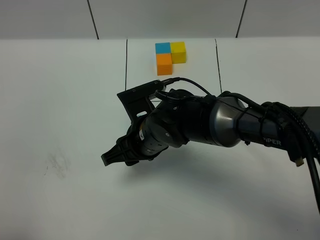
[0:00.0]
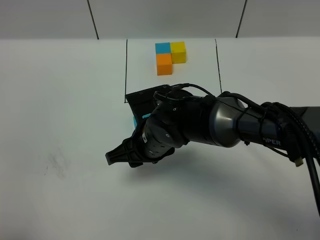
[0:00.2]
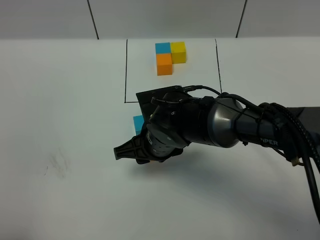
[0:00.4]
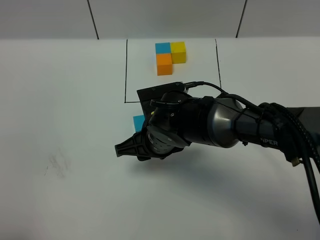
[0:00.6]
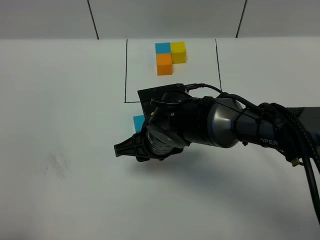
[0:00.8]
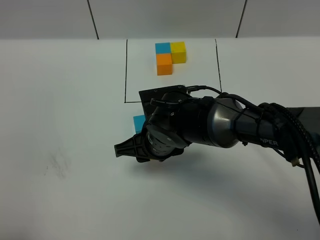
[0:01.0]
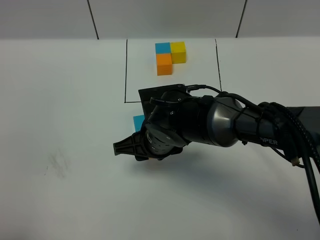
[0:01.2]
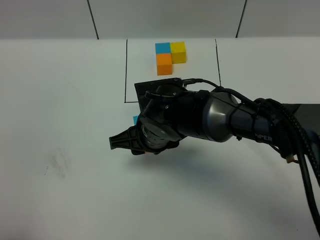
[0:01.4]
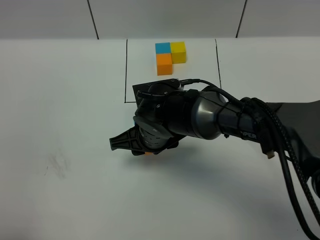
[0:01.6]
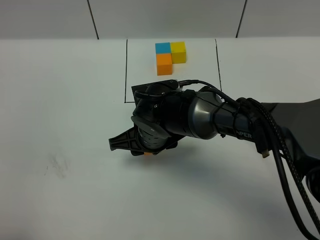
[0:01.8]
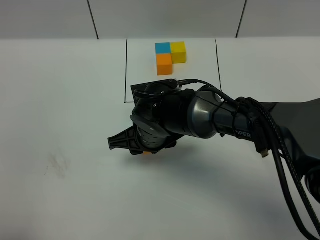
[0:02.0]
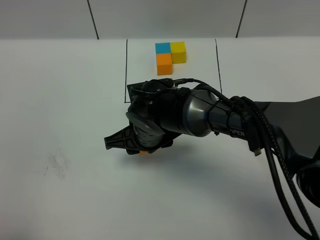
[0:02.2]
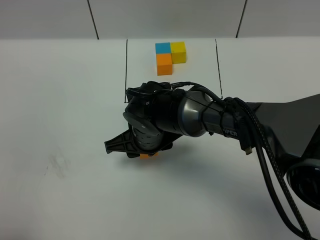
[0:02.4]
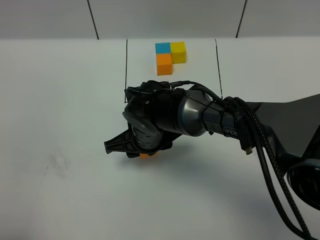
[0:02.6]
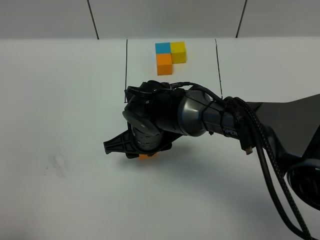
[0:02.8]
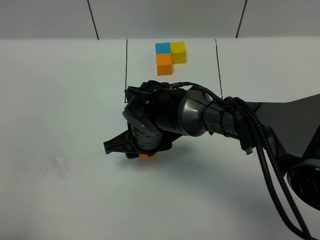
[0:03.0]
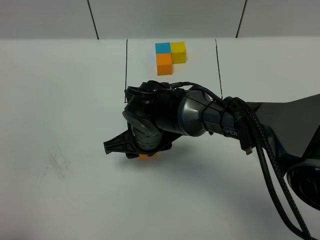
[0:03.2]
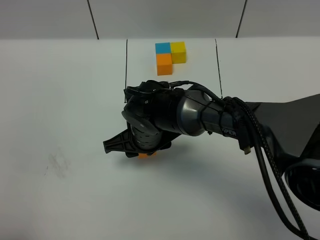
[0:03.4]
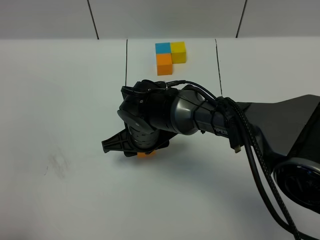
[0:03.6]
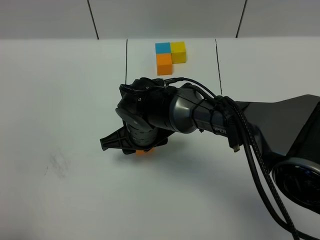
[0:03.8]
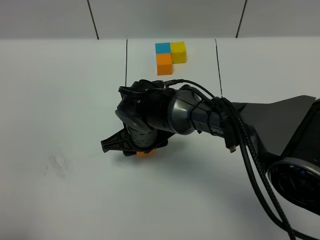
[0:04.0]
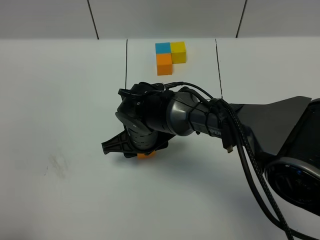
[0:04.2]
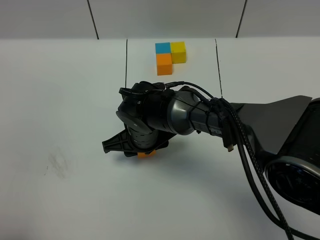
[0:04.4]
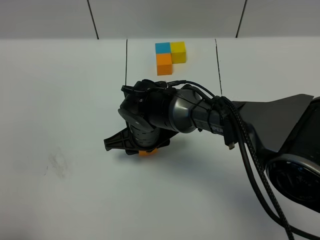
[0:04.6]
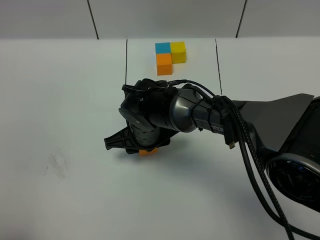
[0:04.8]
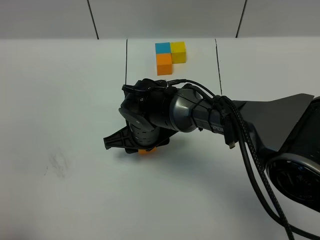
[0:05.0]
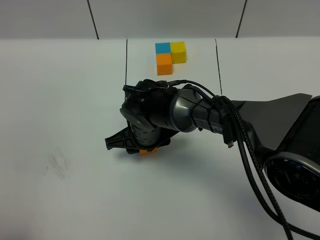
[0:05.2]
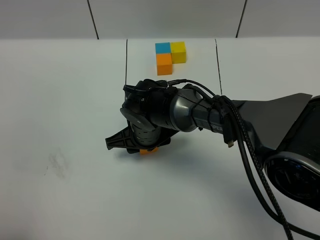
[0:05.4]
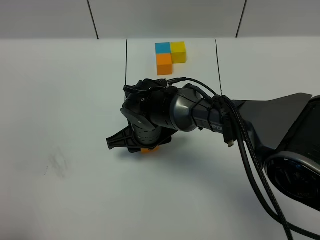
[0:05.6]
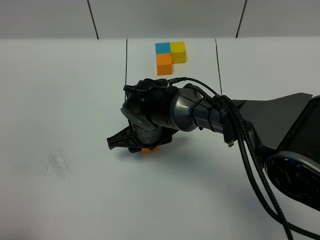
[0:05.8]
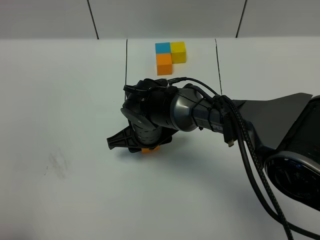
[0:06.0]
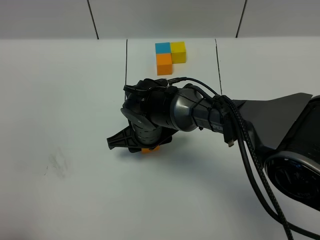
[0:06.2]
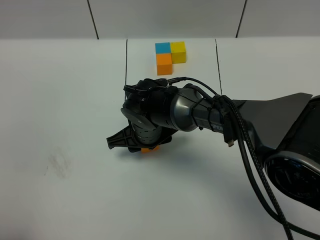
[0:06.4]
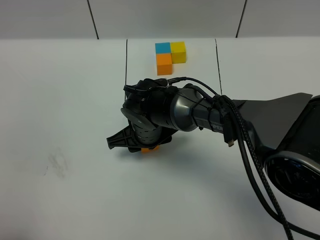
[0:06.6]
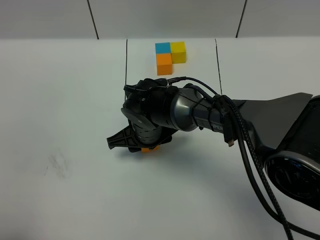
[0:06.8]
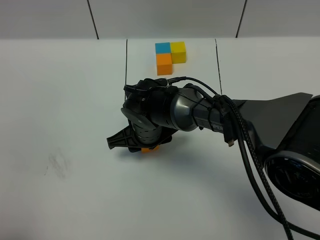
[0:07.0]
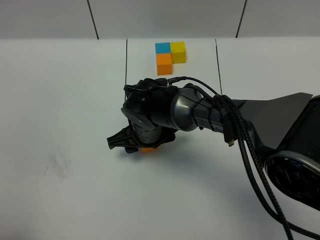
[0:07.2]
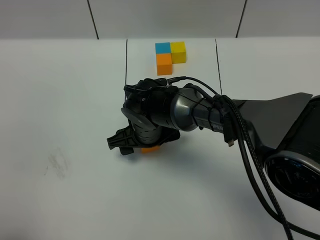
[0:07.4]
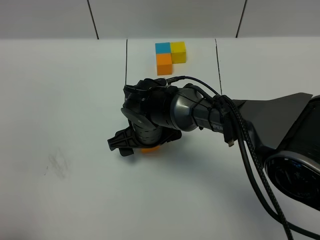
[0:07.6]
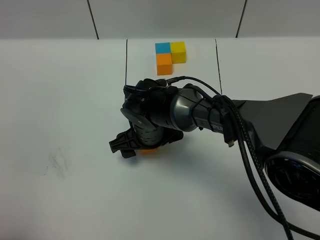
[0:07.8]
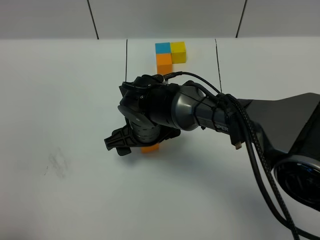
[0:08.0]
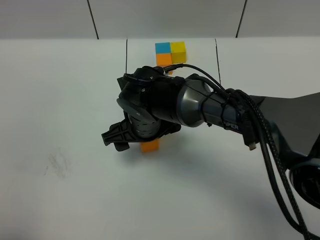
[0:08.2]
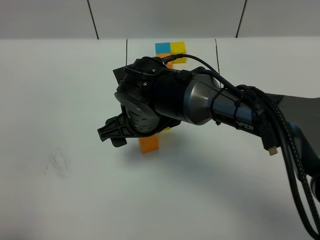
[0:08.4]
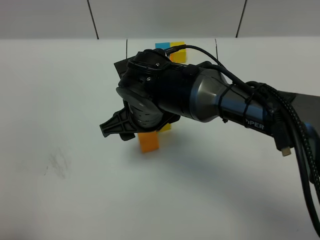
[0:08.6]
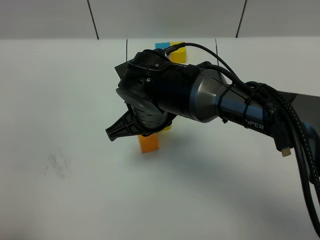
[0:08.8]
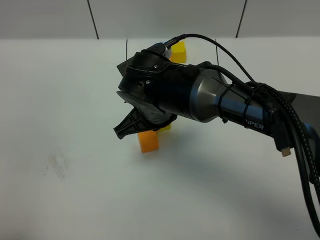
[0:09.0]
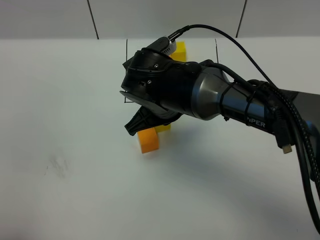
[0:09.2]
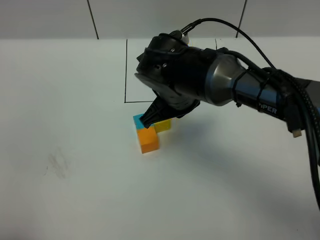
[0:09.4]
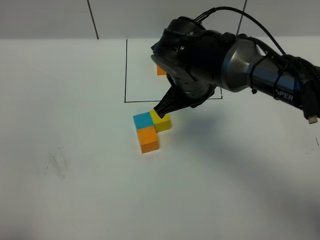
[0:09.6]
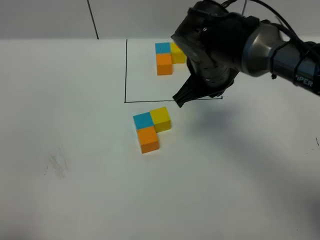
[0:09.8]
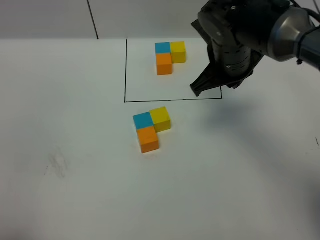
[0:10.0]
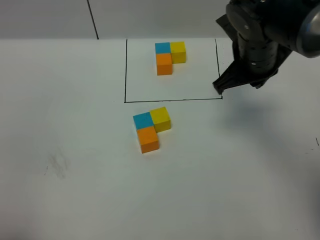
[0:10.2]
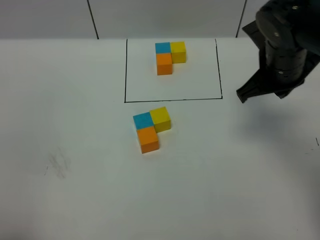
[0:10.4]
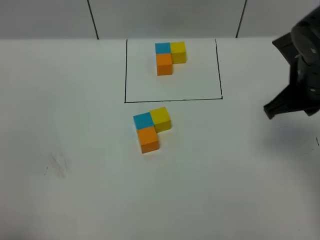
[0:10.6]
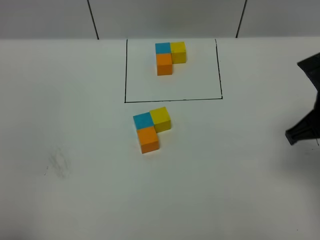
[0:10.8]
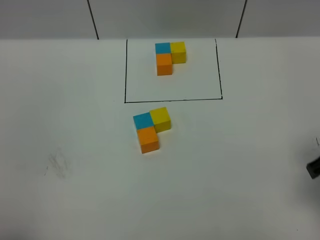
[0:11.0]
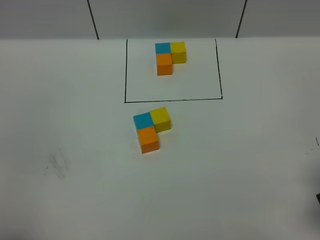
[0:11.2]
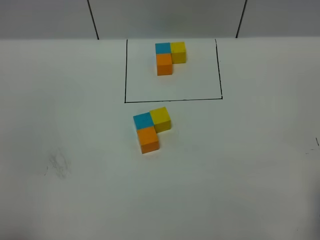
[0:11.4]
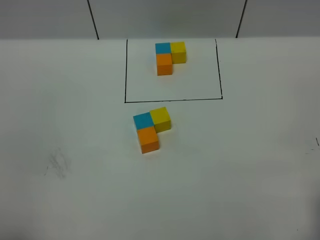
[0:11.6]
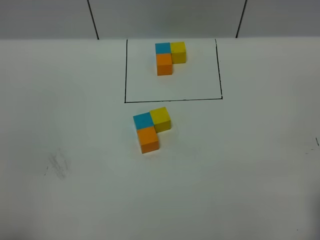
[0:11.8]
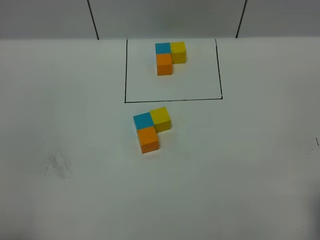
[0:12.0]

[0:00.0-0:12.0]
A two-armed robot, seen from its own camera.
Task of the whole recording: According to the building block template in front, assemble the scattered blocks together.
Step, 0:00.0 to 0:09.6: Put the orange cube in the front of the blue cube.
0:00.0 to 0:04.4: The grippers stay close to where they were, moving slightly.
0:04.4 to 0:06.0: The two grippers keep their place.
0:06.0 to 0:07.6: The right gripper opens its fingers.
0:07.6 to 0:09.0: The right gripper travels upward by about 10 cm, and closes.
0:09.0 to 0:10.4: The right gripper moves to the right, about 20 cm.
0:10.4 to 0:12.0: The right gripper goes about 25 cm backward.

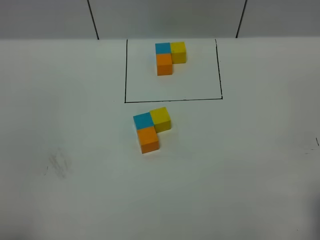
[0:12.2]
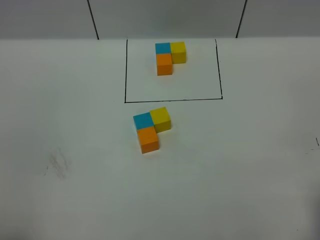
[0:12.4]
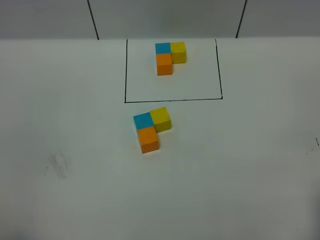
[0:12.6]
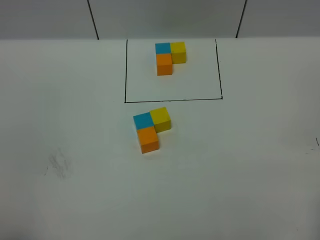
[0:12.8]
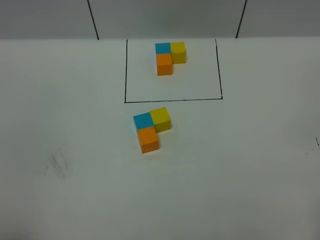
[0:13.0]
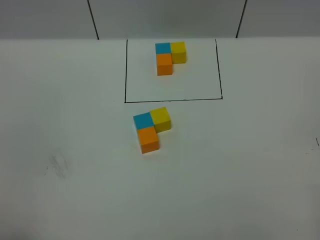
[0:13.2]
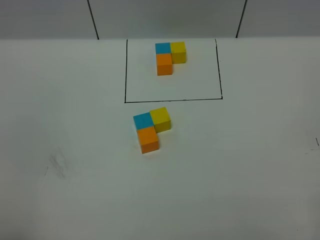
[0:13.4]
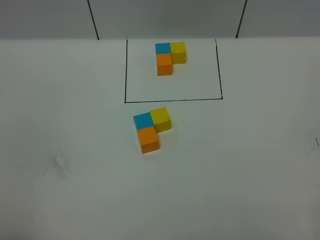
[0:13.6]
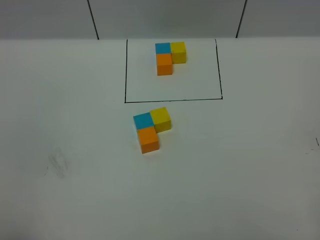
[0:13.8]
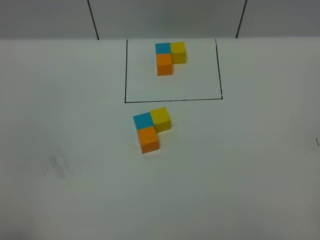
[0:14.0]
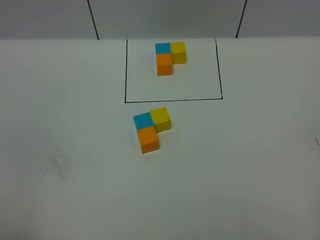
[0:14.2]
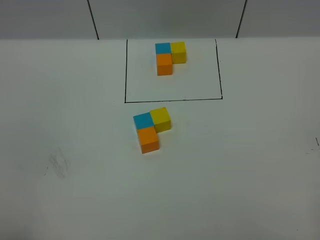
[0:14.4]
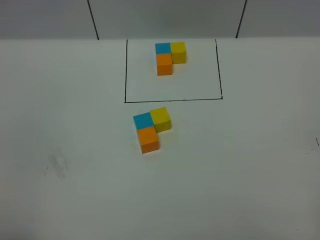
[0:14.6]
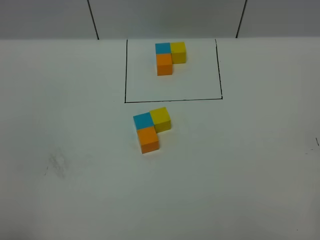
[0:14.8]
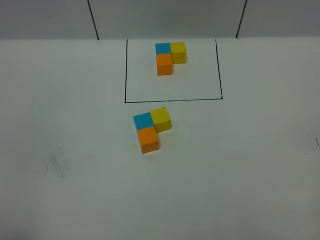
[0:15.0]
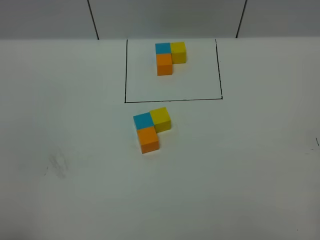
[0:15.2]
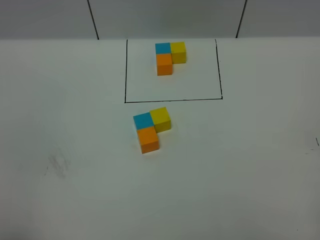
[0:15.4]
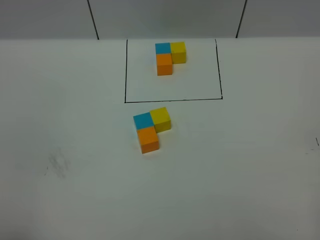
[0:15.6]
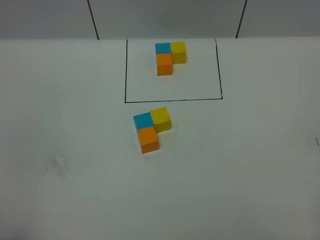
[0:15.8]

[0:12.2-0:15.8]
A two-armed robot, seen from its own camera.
Task of the whole recording: According to the building block template in front, assemble the scattered blocks together.
0:14.0 to 0:15.8: Both grippers stay put.
